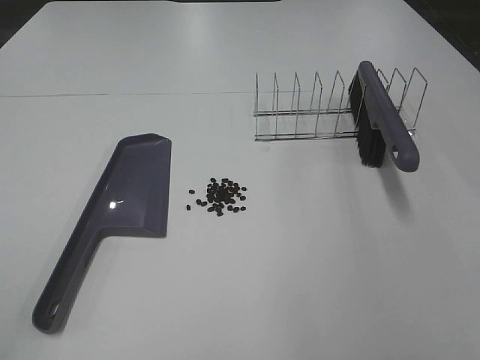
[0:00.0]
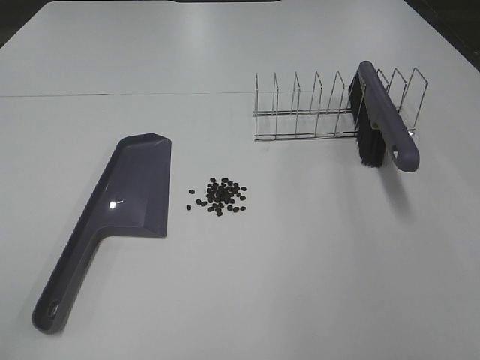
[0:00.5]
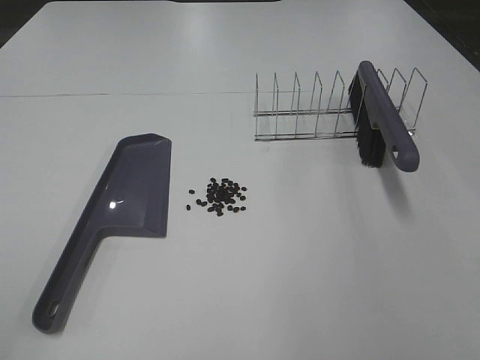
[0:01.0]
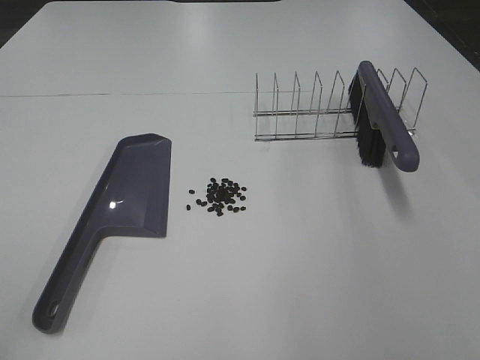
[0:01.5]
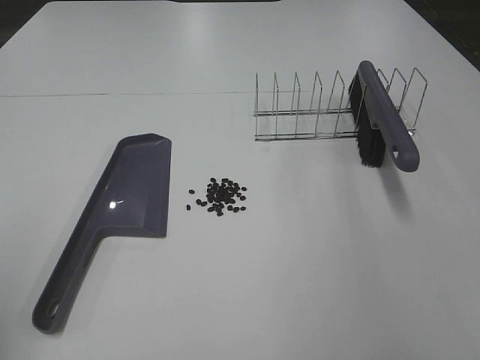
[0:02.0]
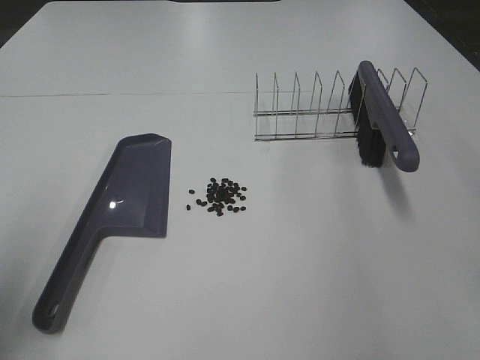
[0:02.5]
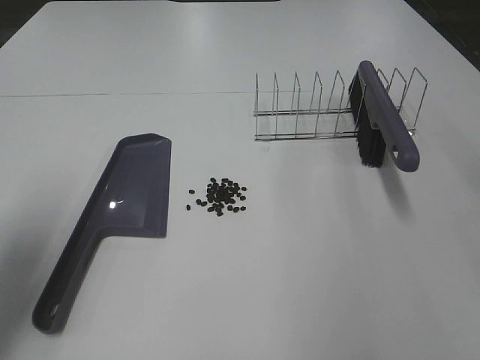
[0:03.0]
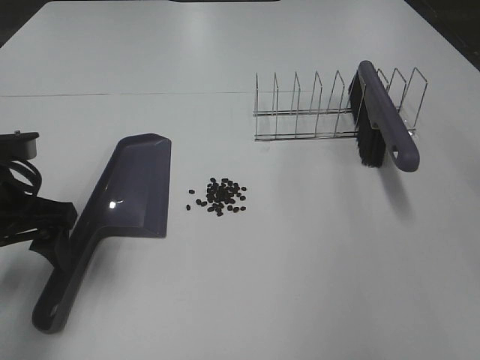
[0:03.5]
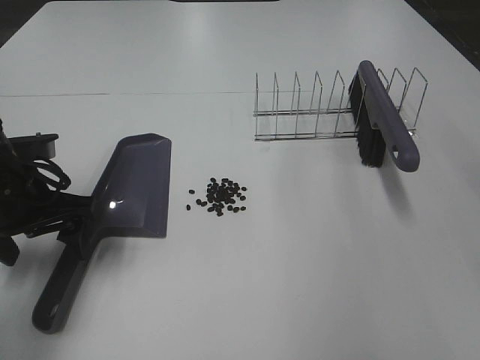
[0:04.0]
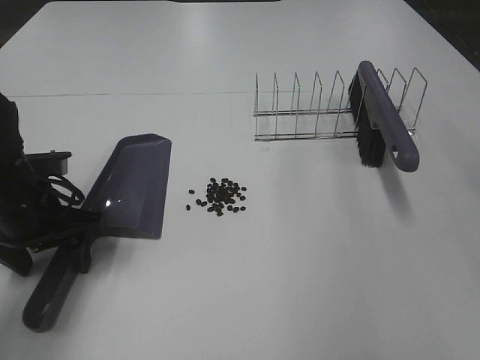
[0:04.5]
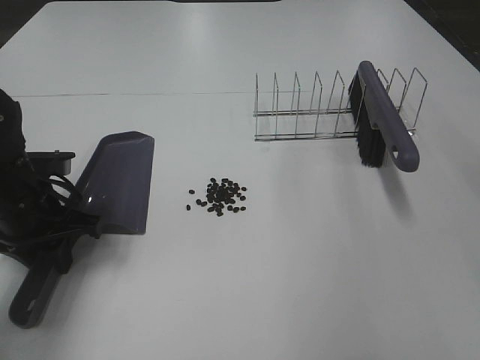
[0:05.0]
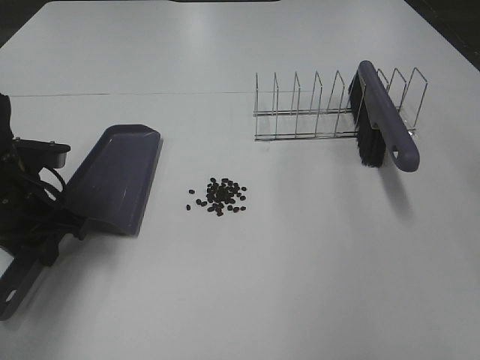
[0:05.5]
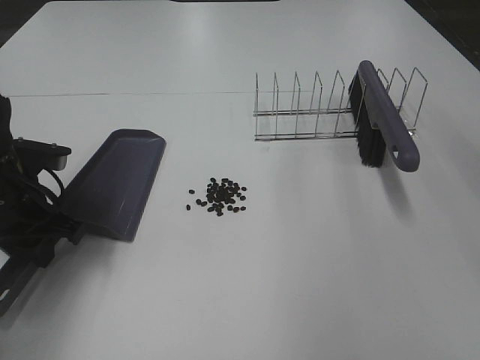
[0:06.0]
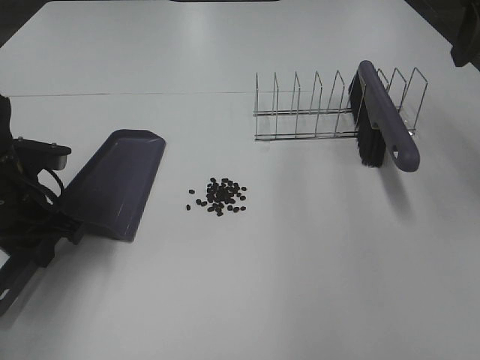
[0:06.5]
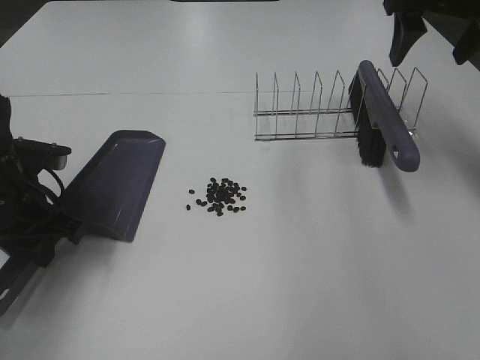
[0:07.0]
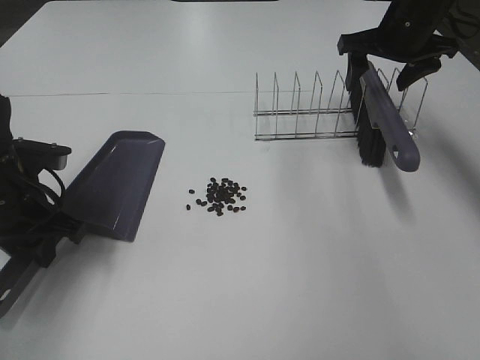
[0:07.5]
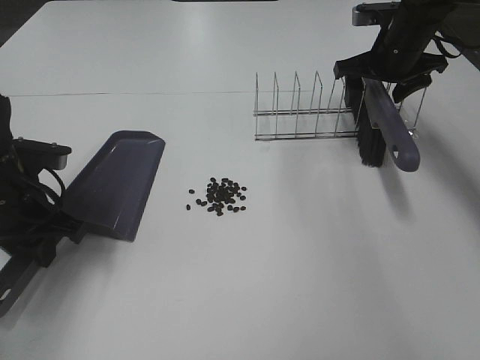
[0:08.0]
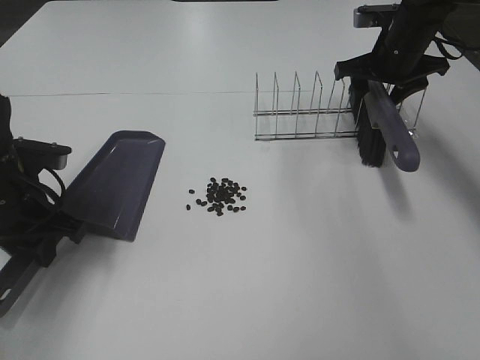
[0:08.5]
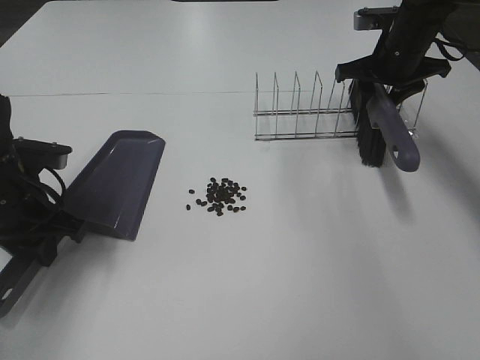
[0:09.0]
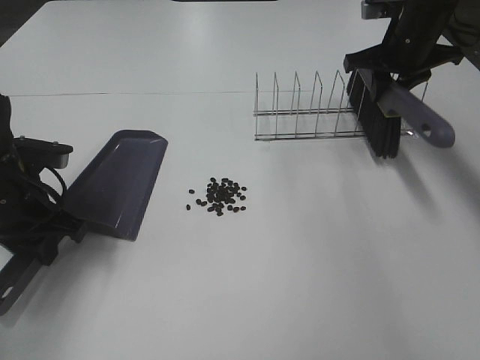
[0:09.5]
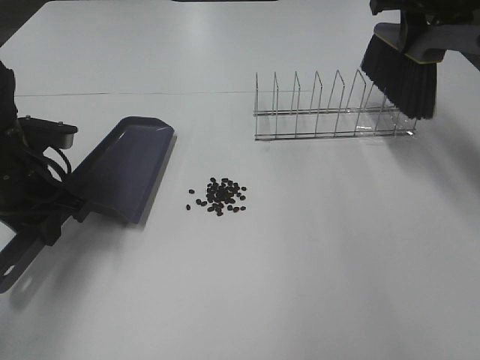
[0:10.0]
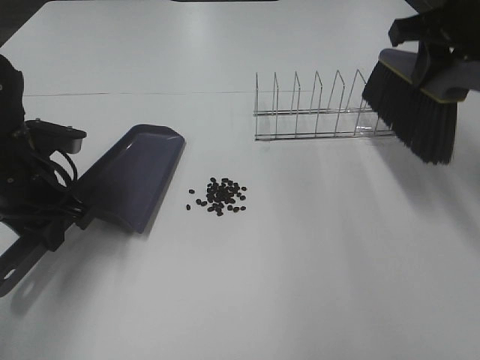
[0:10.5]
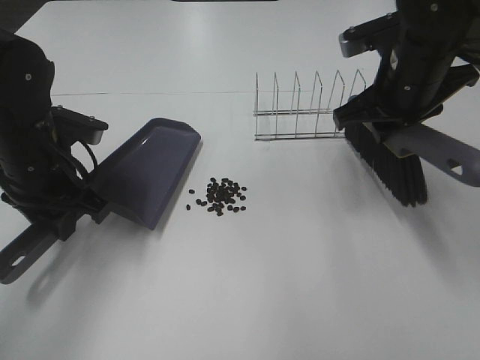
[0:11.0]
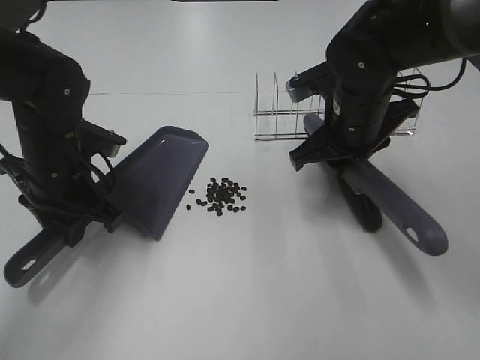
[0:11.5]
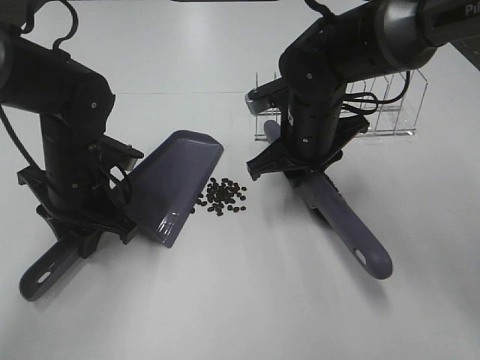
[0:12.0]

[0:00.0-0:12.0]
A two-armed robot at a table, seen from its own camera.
Task of the whole recording: Sweep Coffee Bean.
Step, 0:00.0 to 0:04.5: Left hand: grab the dustpan.
Step, 0:04.0 to 0:09.0: Right hand:grab the broom.
0:02.0 to 0:04.0: The left gripper heads forward, downward and to the right, covering roughly 25 cm.
0:04.0 to 0:06.0: The left gripper closes its fingers.
0:06.0 to 0:08.0: The right gripper goes about 35 cm forward and downward.
0:08.0 to 0:10.0: The right gripper shifts approximately 10 cm upward, and closes.
0:10.0 to 0:12.0: The right gripper goes approximately 25 cm to the left, downward and backward; the left gripper is displaced to the right by some 5 cm.

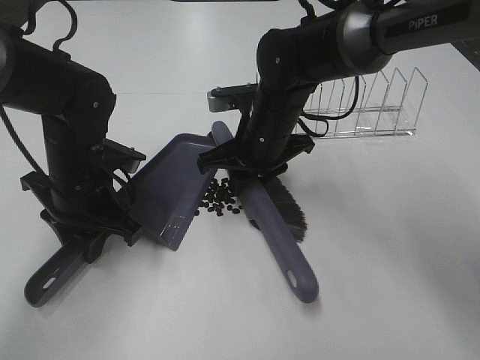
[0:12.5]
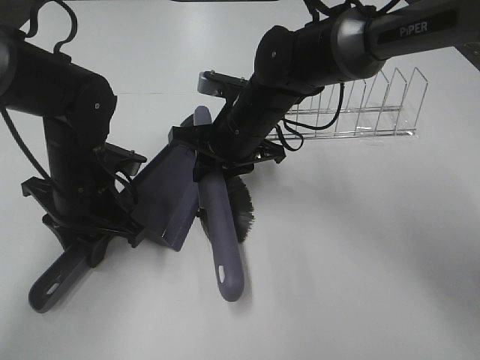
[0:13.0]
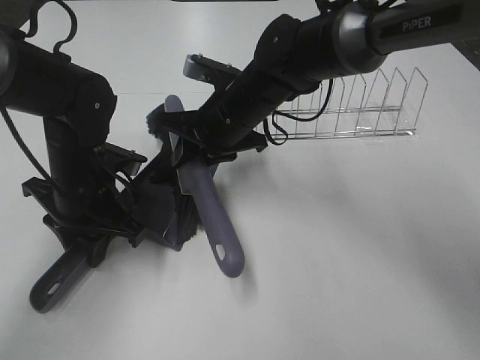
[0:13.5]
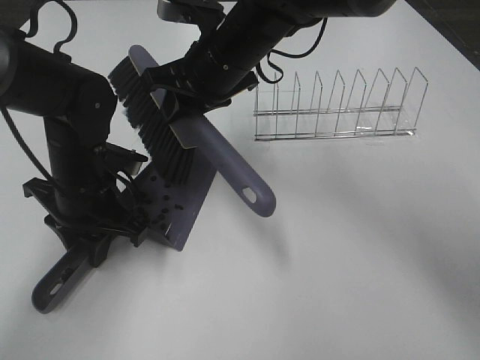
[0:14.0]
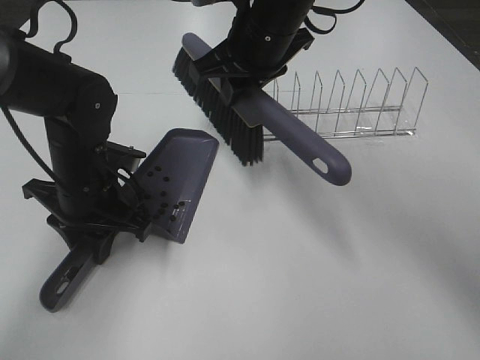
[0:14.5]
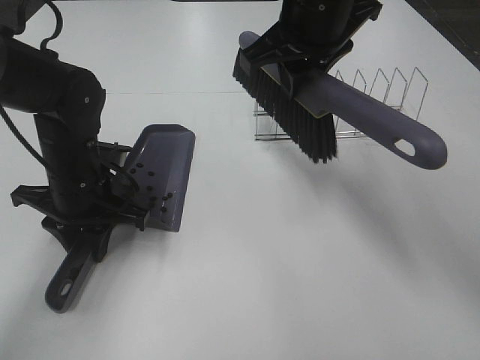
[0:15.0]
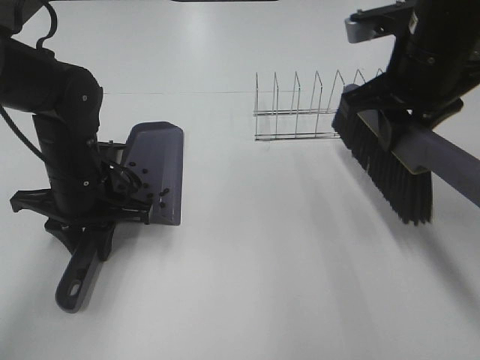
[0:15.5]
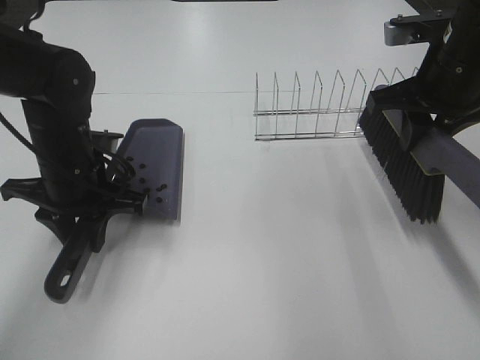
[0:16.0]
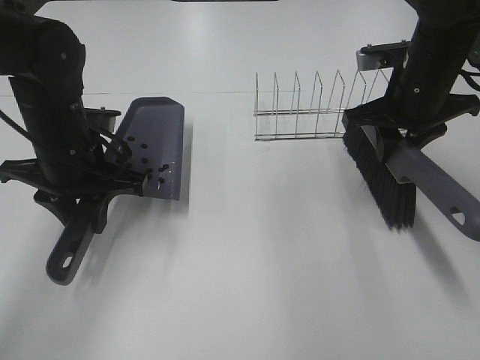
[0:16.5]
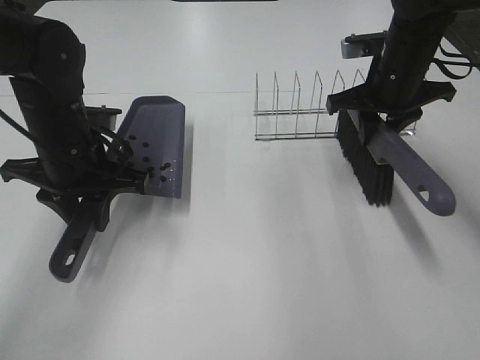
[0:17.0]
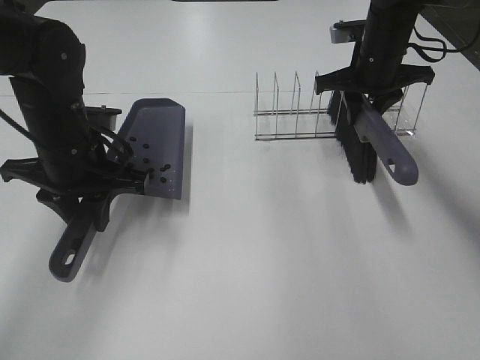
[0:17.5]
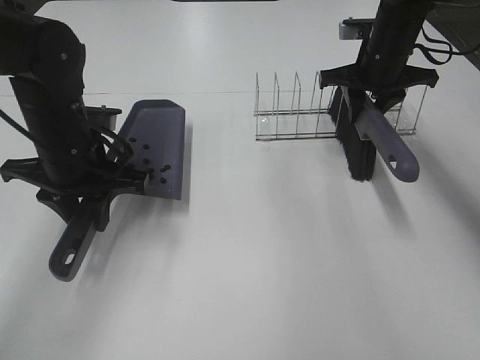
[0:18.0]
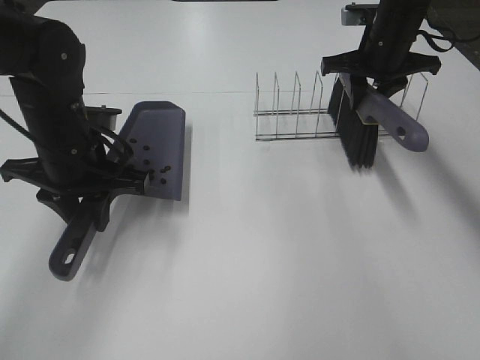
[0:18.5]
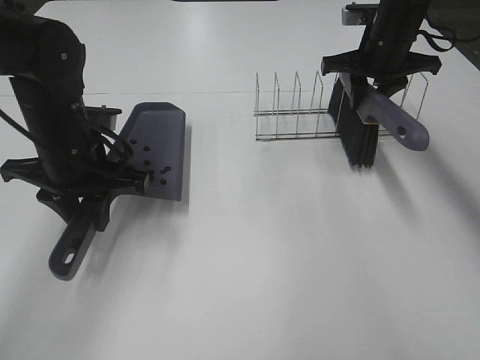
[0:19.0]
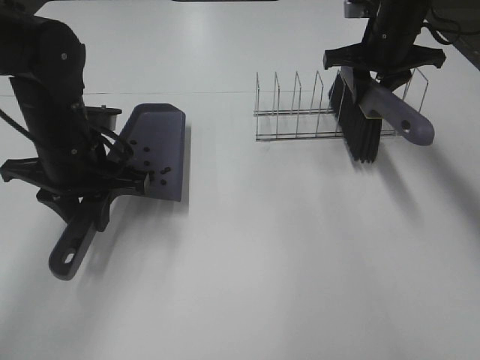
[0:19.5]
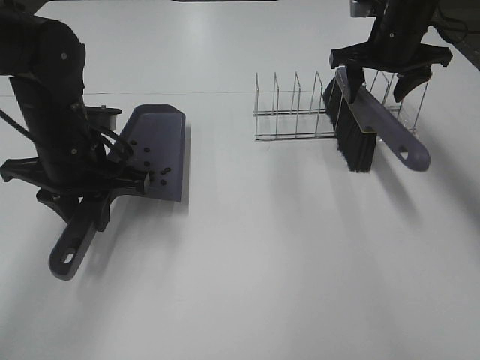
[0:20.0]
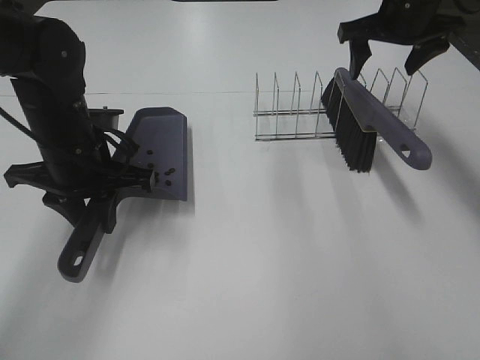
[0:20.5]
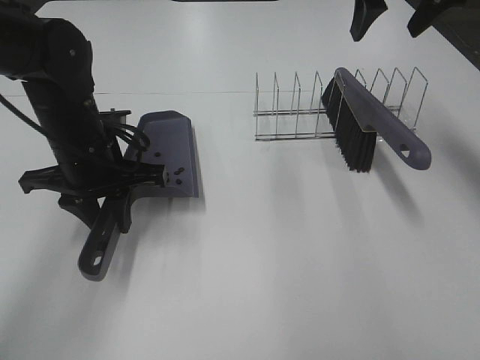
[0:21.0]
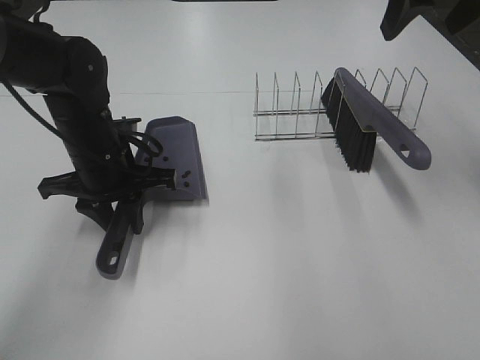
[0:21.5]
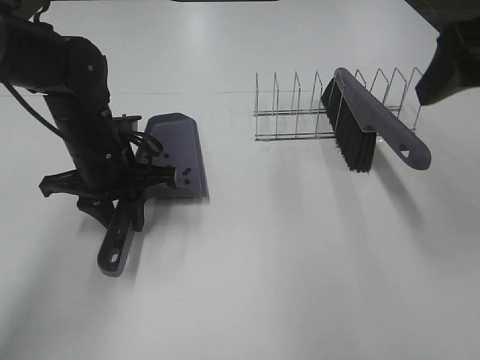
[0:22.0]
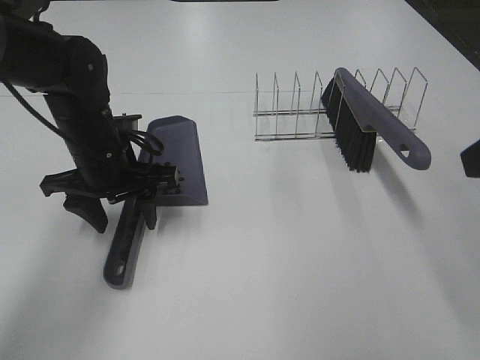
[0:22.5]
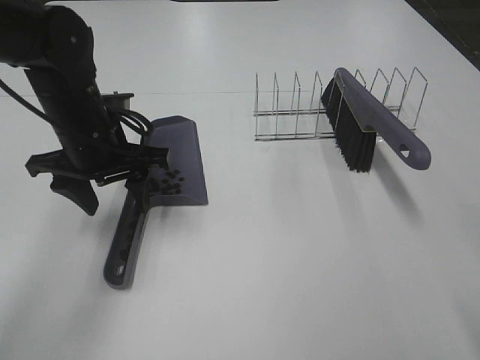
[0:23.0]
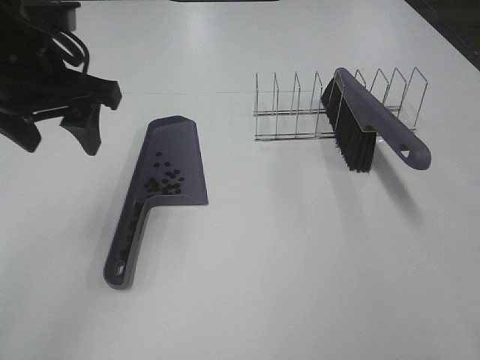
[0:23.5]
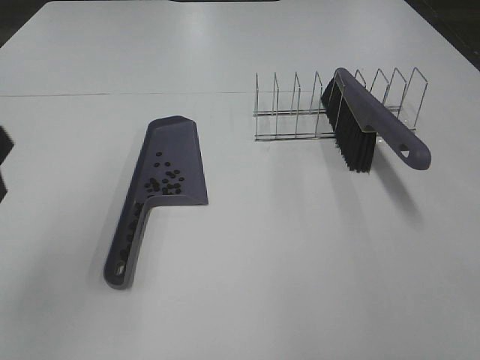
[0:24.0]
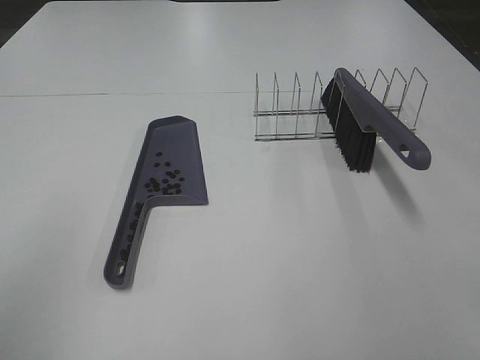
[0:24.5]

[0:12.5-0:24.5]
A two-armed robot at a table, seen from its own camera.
Task of the whole recording: Sweep Coffee Bean.
Step, 0:14.0 to 0:19.5: Right hand:place the broom on the rack.
0:12.5 to 0:14.5: The right gripper moves upward, roughly 15 cm.
0:14.5 to 0:16.5: The right gripper moves to the right, approximately 15 cm.
0:16.5 to 0:18.5: The right gripper travels forward by about 10 cm.
0:18.5 to 0:20.5: The right gripper shifts roughly 5 cm upward, and opens.
0:20.5 to 0:22.5: The right gripper goes some 30 cm backward, while the left gripper opens up.
0:22.5 to 0:24.5: The left gripper travels backward, upward and to the left by some 35 cm. The right gripper travels backward by about 15 cm.
